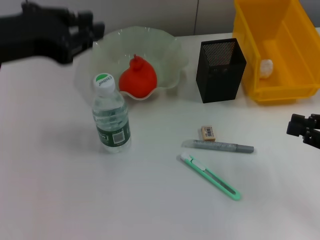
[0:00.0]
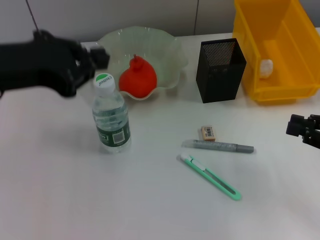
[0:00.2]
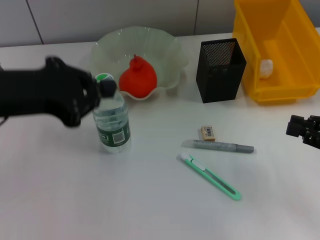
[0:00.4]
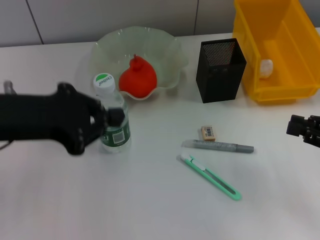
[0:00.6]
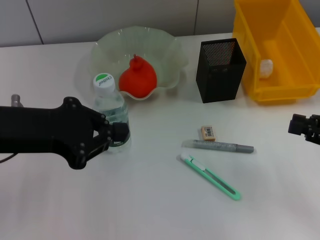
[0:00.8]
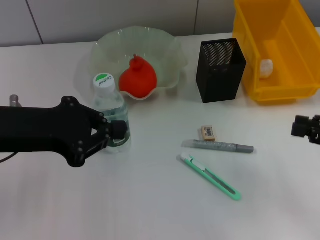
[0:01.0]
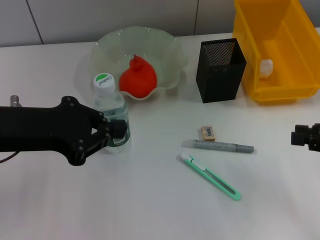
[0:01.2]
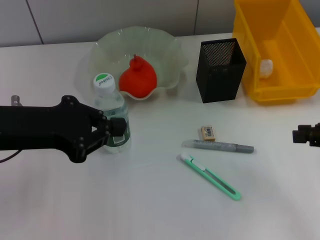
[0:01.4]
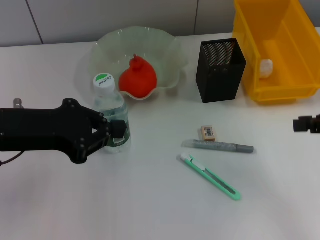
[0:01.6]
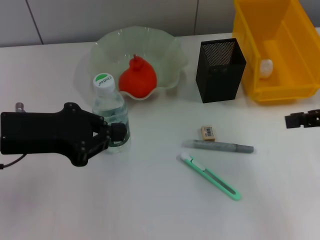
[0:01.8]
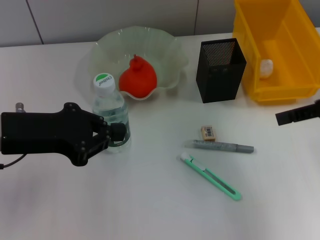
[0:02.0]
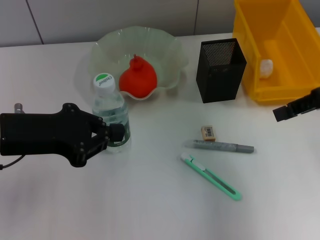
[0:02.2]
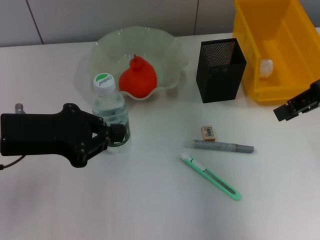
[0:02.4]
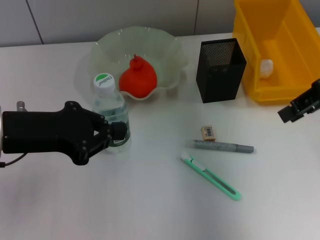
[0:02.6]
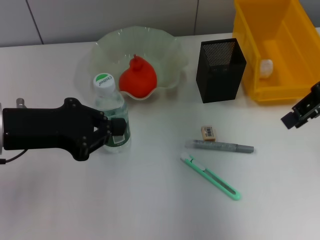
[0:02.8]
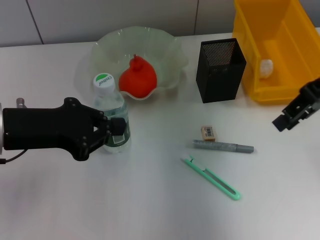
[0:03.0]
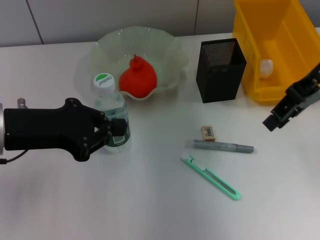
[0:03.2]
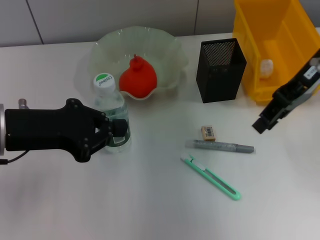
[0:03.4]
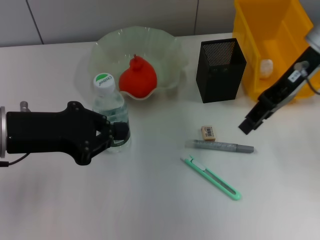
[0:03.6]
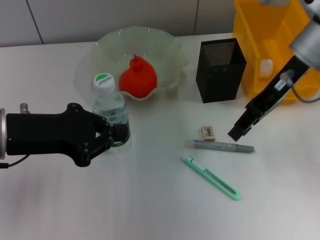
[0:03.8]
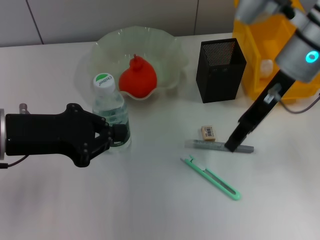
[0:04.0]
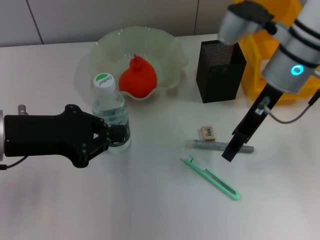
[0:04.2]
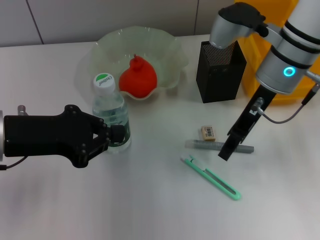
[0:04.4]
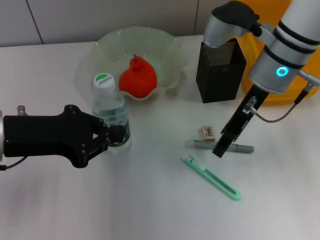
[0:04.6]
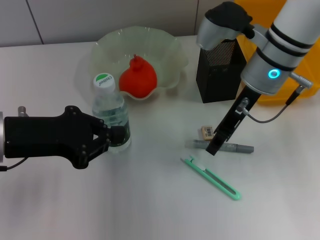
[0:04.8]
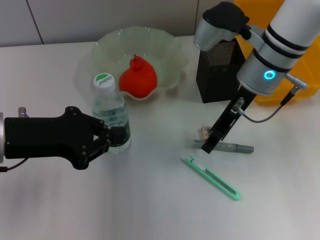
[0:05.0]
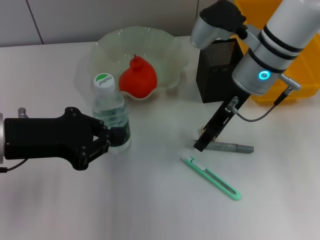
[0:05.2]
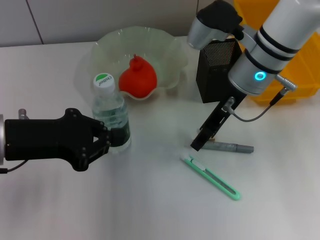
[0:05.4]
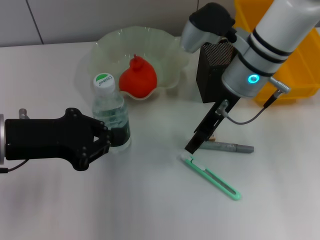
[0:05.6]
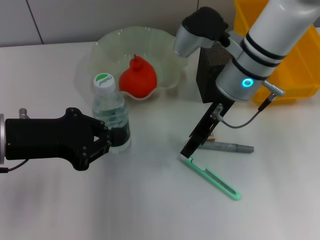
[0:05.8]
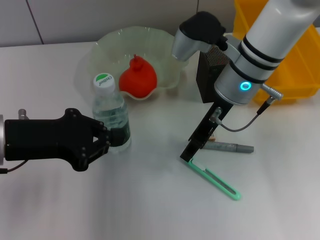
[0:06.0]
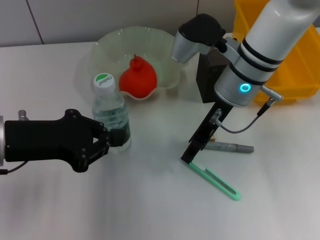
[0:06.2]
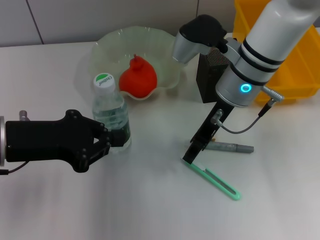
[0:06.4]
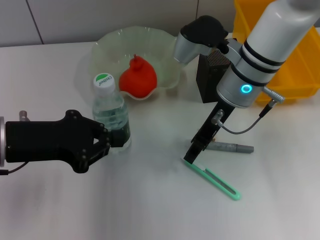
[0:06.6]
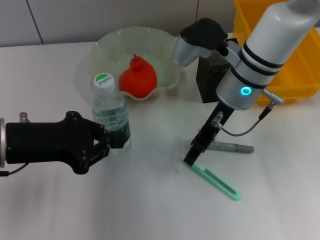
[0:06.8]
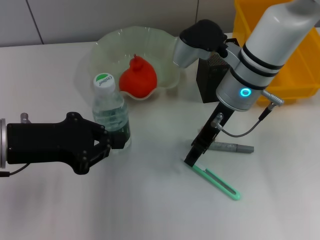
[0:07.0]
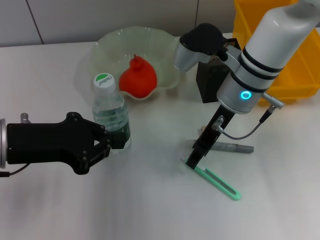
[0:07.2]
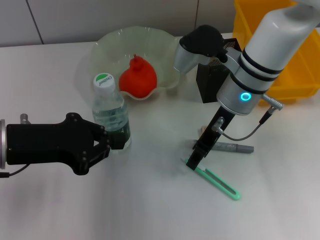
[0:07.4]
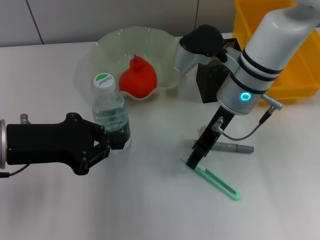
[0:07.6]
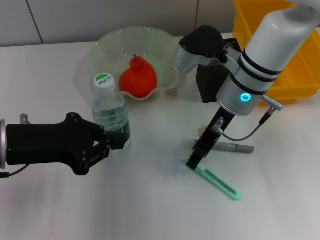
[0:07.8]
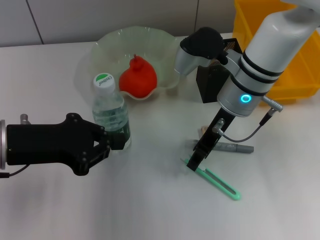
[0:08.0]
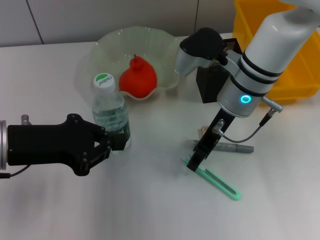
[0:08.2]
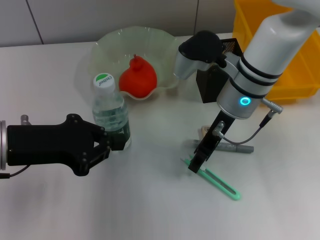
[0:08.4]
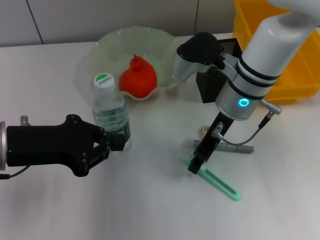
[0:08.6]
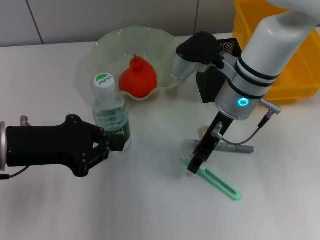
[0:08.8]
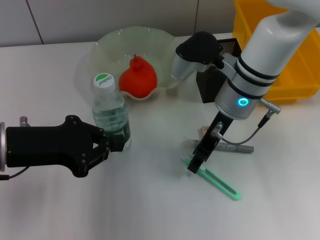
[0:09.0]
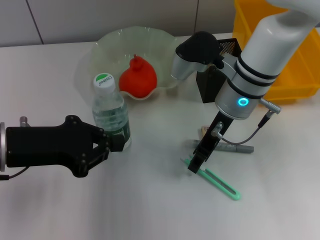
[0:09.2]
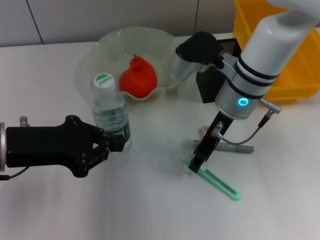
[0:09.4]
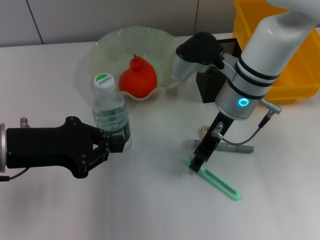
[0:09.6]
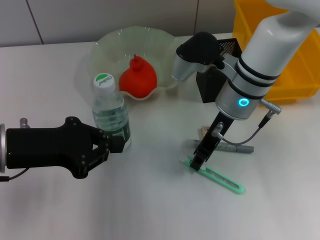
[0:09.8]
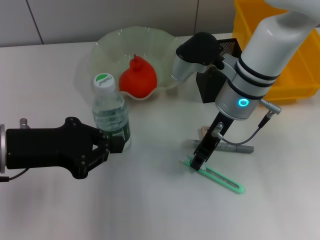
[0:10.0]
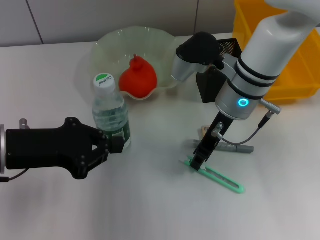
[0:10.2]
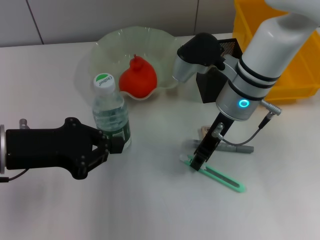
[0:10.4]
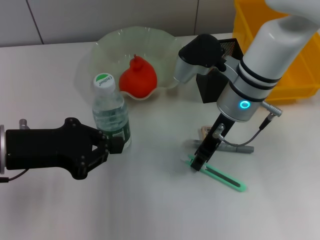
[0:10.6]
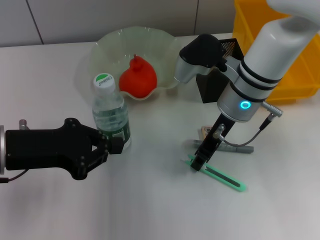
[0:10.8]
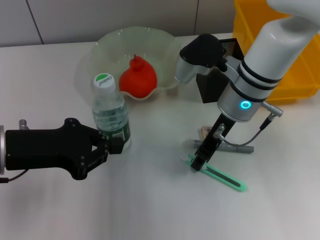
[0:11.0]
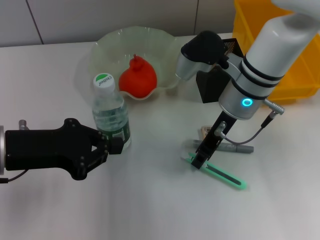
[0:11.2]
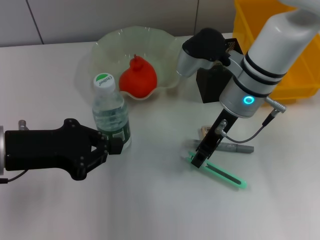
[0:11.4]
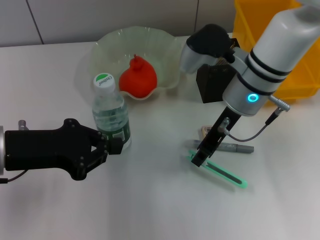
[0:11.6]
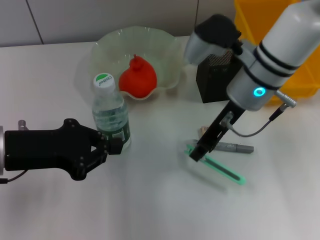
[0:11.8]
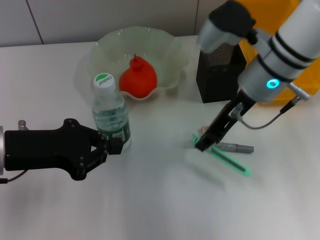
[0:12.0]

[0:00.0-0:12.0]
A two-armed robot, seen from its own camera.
Step, 0:00.0 to 0:11.0: Grab the blue utility knife with the right hand.
0:00.0 to 0:01.6: The right gripper moves upward, roughly 5 cm; the left gripper moves downward, roughly 5 cm, and closes up.
0:01.6 to 0:03.0: The right gripper is displaced forward, to the left and upward by some 15 cm.
0:03.0 to 0:04.4: The right gripper shifts some 15 cm to the left and downward.
0:04.4 to 0:06.0: The right gripper changes place by about 5 cm.
0:06.0 to 0:07.6: The grippers make only small movements.
0:07.6 to 0:10.4: The two grippers keep their place.
0:10.4 to 0:12.0: The right gripper shifts by some 5 cm.

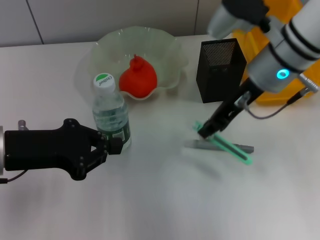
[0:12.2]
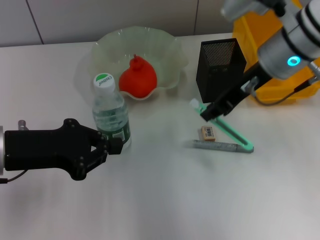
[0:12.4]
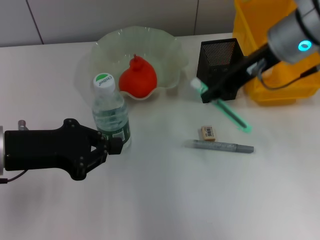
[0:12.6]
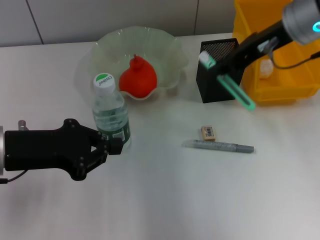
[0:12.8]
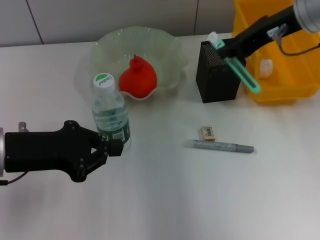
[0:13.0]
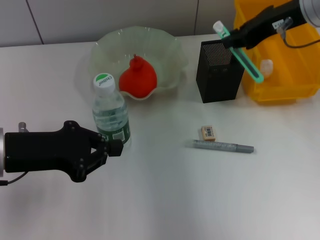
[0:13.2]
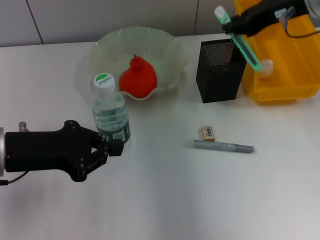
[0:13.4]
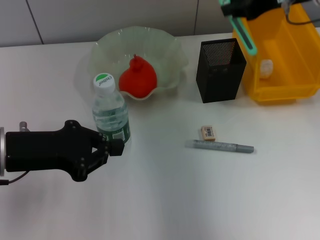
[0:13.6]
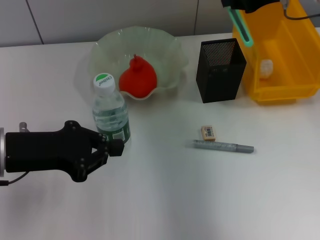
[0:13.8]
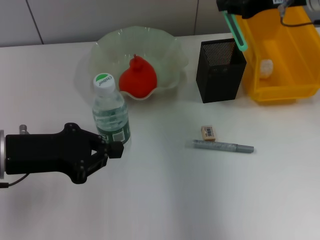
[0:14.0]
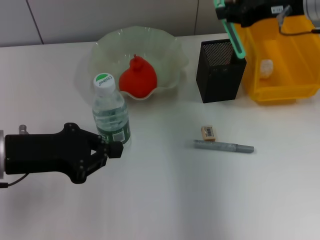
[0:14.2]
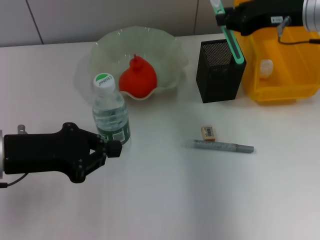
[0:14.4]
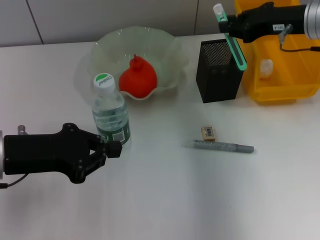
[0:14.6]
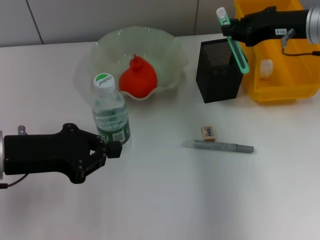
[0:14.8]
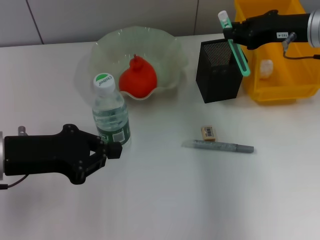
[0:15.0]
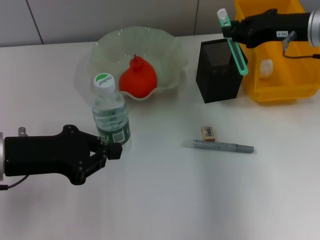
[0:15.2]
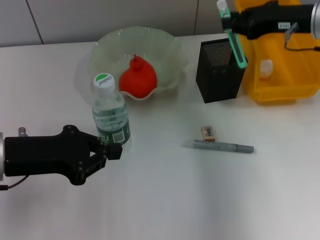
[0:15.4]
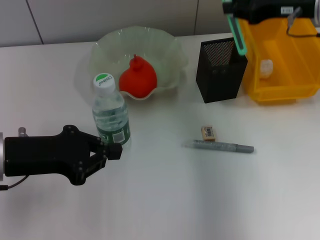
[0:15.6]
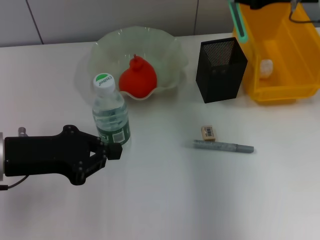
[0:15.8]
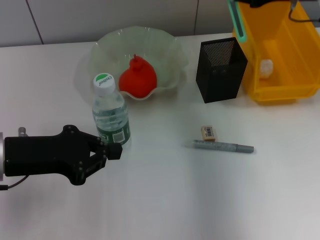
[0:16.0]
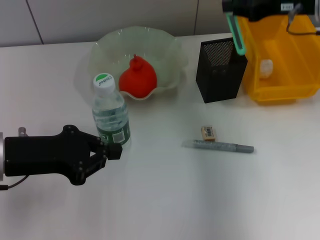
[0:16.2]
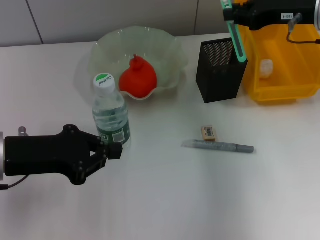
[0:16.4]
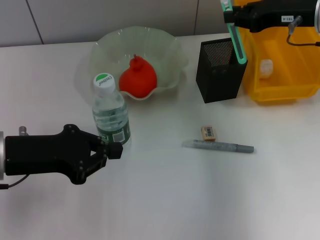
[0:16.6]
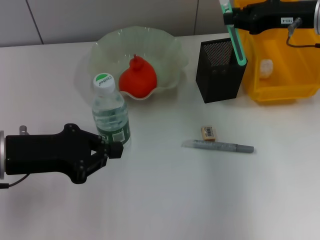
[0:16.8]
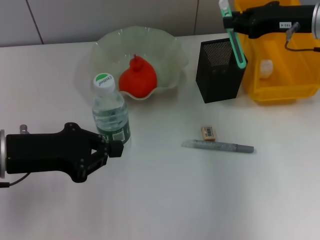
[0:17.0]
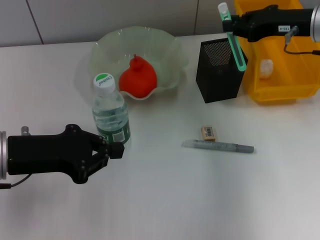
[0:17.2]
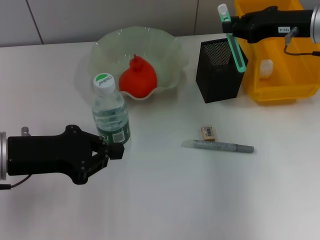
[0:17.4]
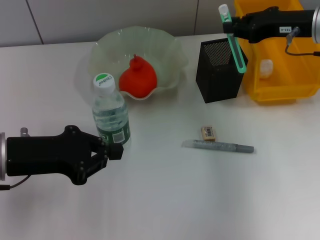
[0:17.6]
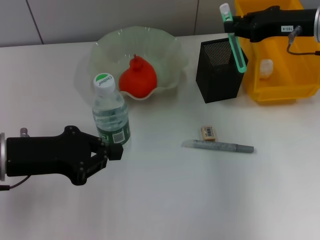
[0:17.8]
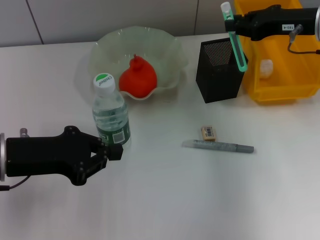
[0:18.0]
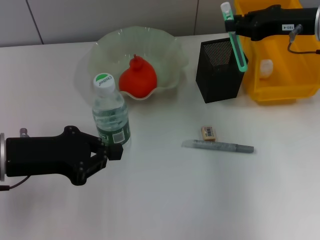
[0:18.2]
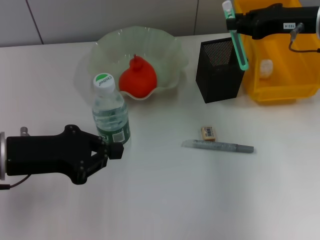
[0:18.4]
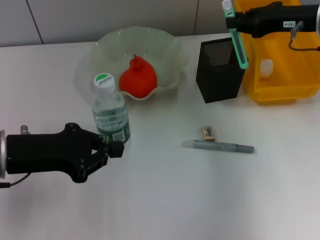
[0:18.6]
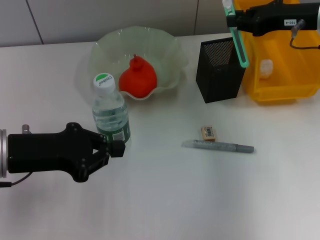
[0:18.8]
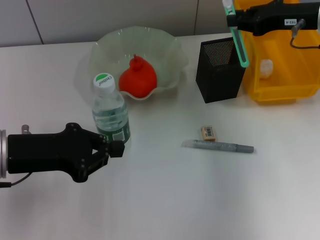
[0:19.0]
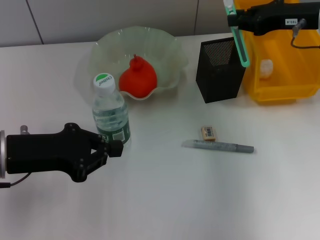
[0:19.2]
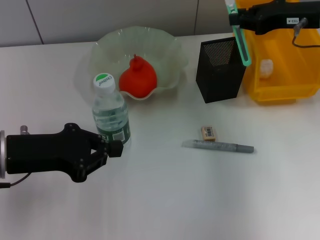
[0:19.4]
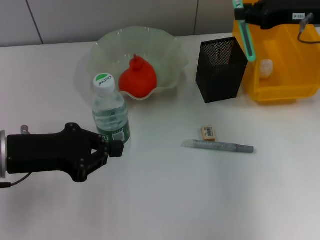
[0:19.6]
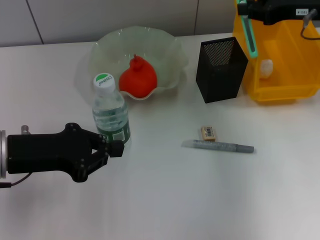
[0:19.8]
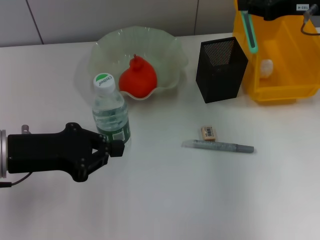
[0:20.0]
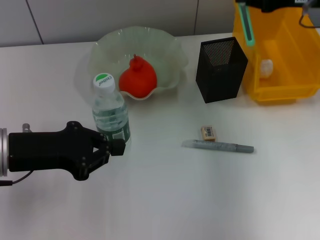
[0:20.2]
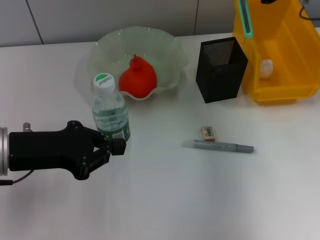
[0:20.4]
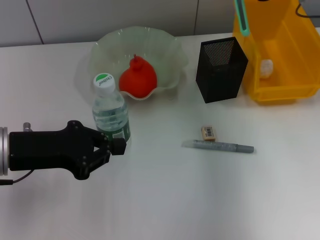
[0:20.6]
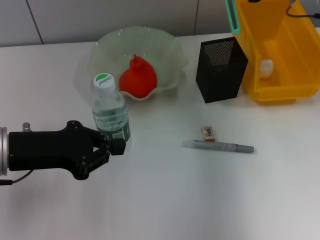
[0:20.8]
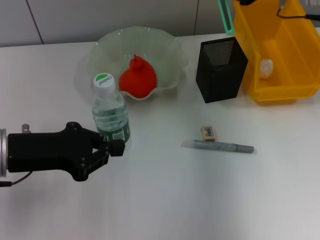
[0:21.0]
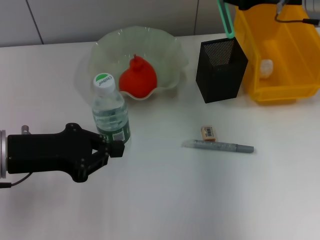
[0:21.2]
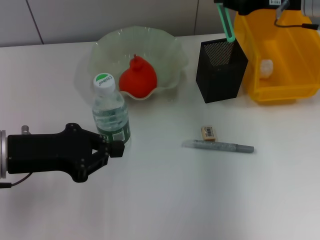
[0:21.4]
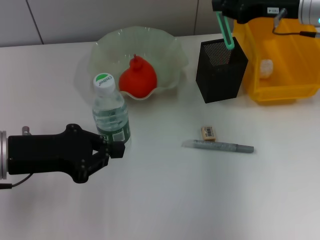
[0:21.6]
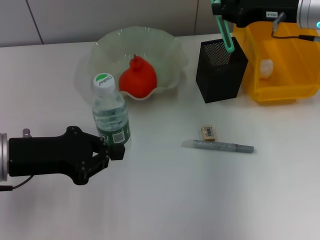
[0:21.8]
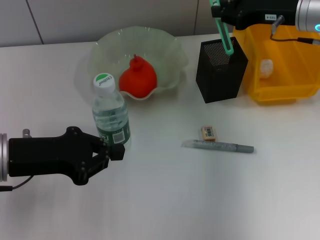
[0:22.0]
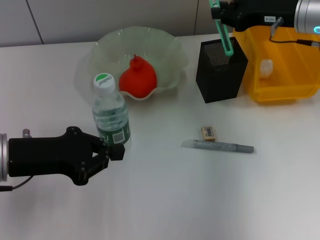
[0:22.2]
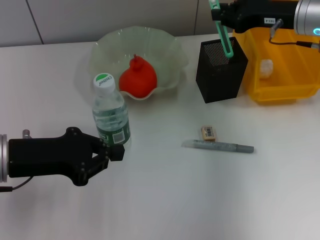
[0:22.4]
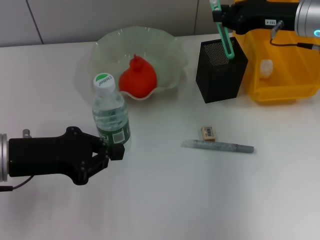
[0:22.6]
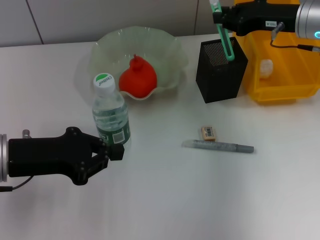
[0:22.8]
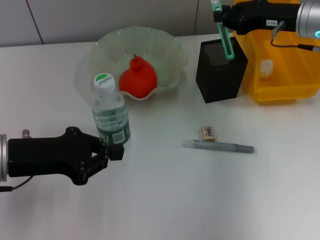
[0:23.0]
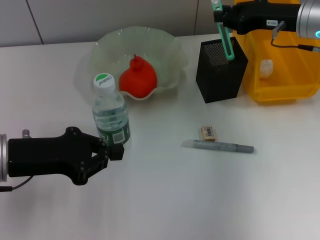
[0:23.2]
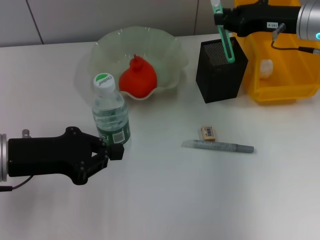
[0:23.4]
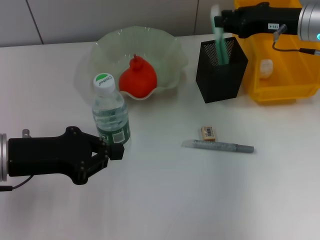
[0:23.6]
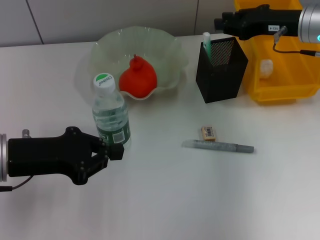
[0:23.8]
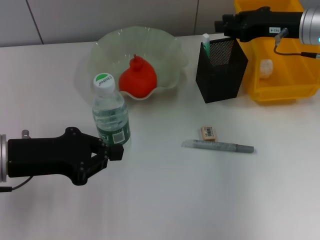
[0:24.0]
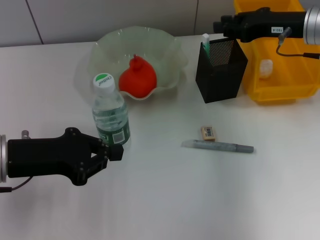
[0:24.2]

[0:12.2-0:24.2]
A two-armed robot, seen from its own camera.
Step, 0:12.2 to 0:24.0: Place the blue utility knife into the pen holder with the right hand.
0:12.2 to 0:13.8: The right gripper shifts roughly 10 cm to the right and upward.
0:13.8 to 0:15.2: The right gripper moves downward, approximately 5 cm.
0:15.2 to 0:24.2: The grippers make only small movements.
